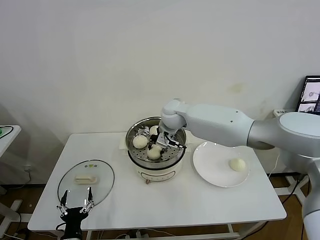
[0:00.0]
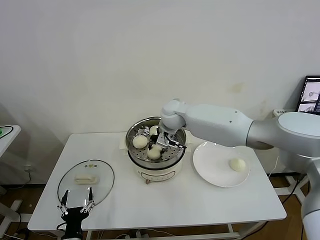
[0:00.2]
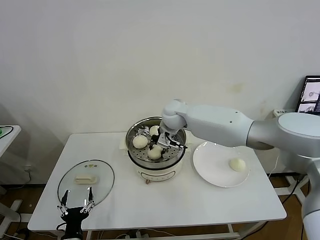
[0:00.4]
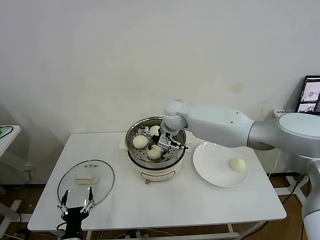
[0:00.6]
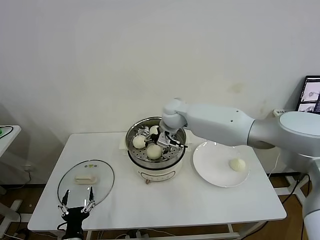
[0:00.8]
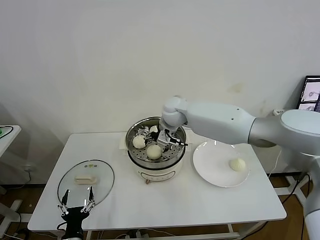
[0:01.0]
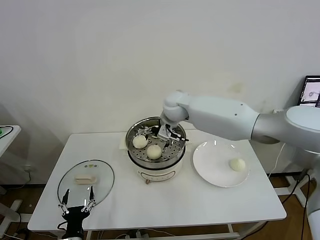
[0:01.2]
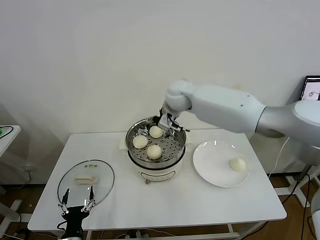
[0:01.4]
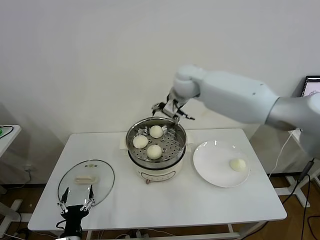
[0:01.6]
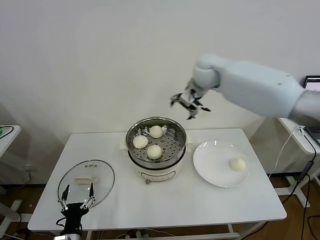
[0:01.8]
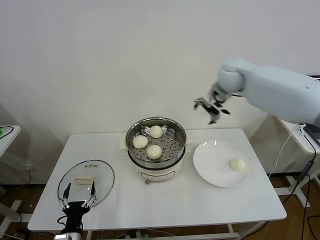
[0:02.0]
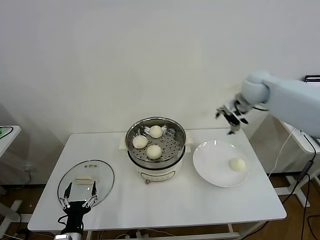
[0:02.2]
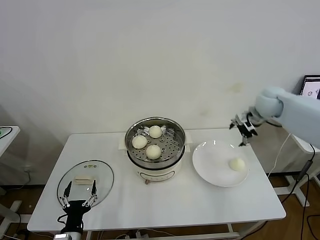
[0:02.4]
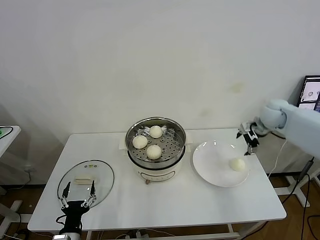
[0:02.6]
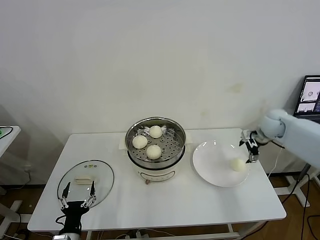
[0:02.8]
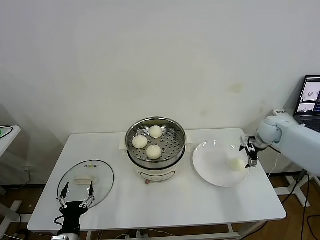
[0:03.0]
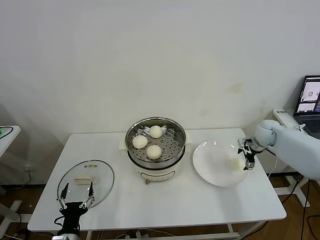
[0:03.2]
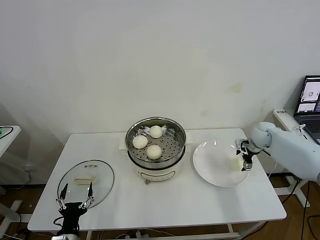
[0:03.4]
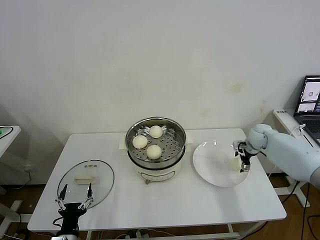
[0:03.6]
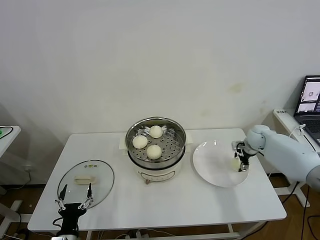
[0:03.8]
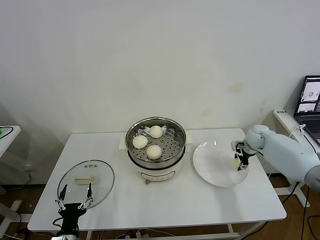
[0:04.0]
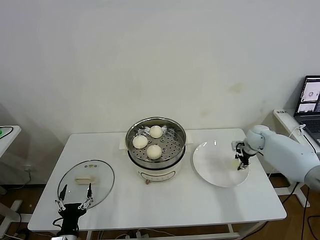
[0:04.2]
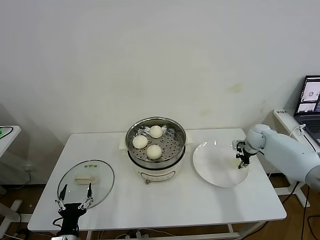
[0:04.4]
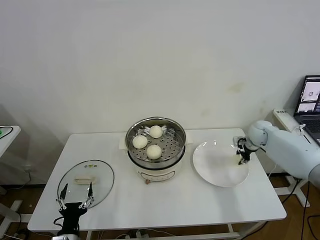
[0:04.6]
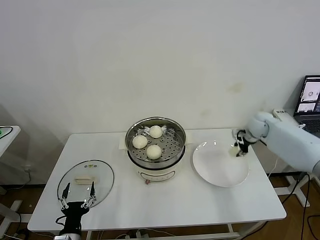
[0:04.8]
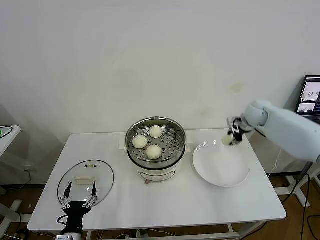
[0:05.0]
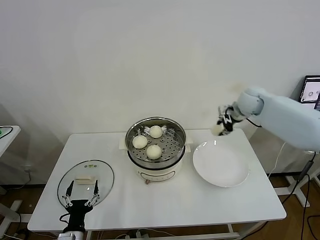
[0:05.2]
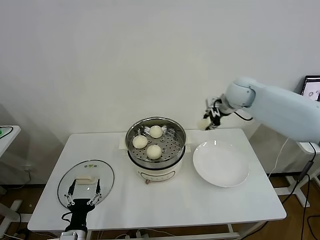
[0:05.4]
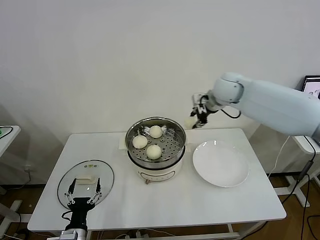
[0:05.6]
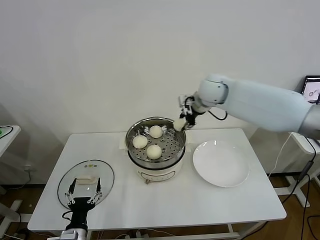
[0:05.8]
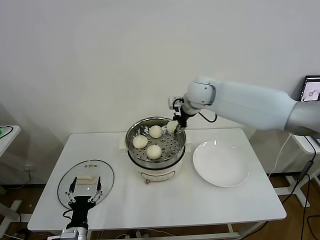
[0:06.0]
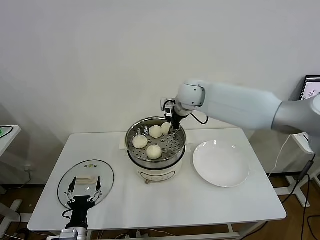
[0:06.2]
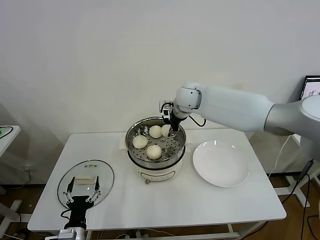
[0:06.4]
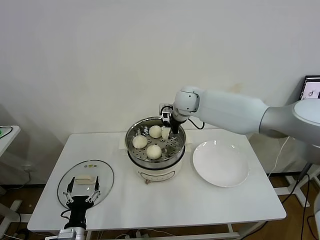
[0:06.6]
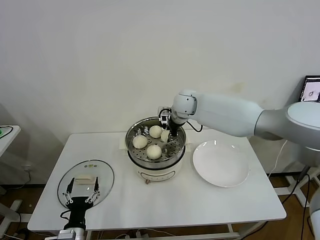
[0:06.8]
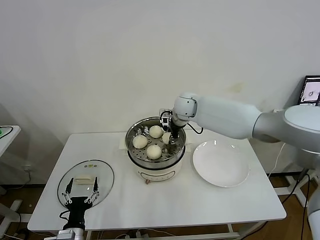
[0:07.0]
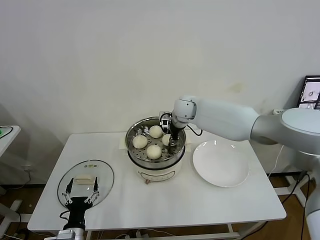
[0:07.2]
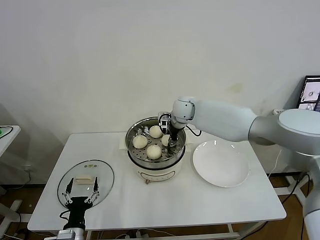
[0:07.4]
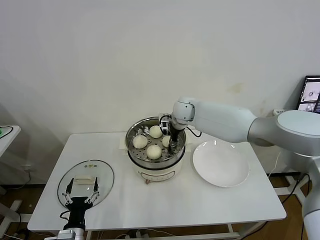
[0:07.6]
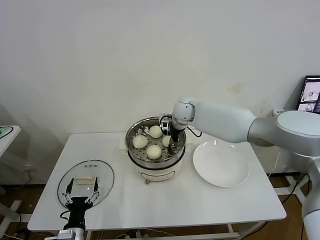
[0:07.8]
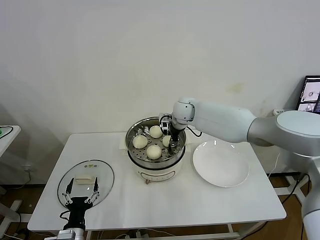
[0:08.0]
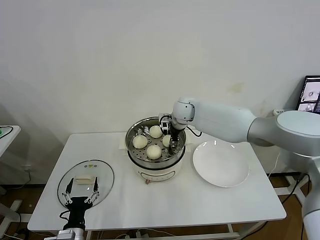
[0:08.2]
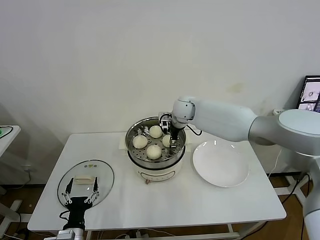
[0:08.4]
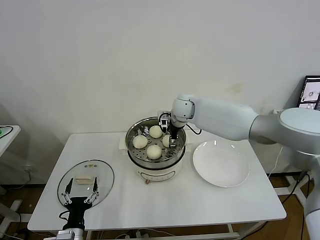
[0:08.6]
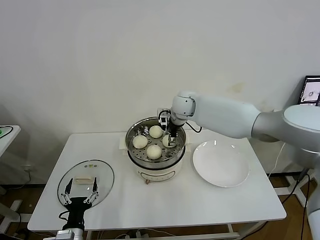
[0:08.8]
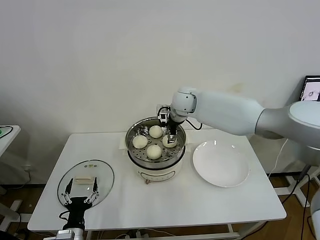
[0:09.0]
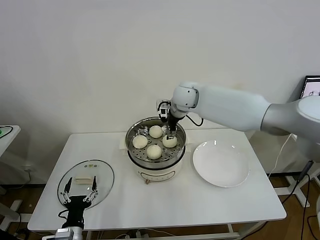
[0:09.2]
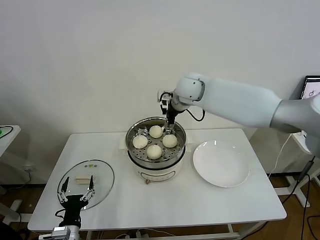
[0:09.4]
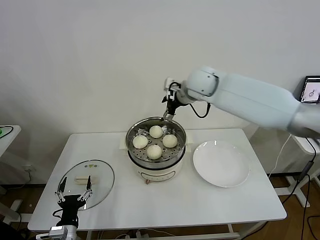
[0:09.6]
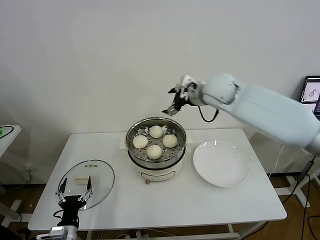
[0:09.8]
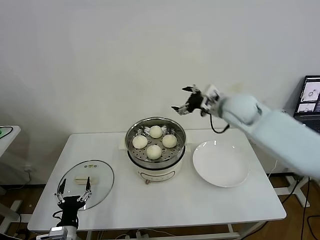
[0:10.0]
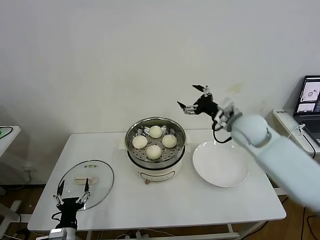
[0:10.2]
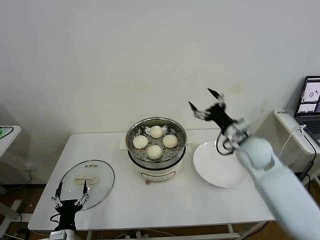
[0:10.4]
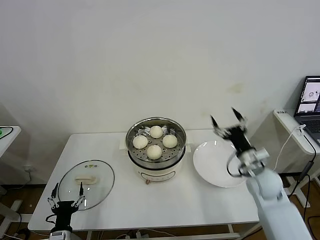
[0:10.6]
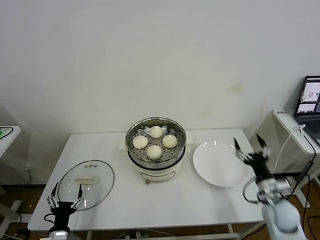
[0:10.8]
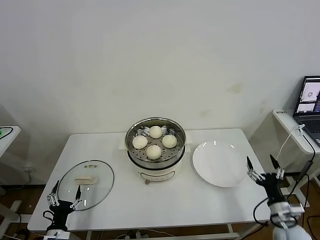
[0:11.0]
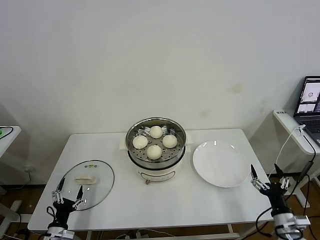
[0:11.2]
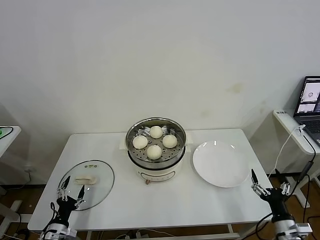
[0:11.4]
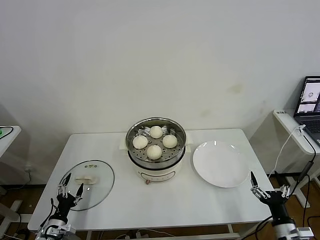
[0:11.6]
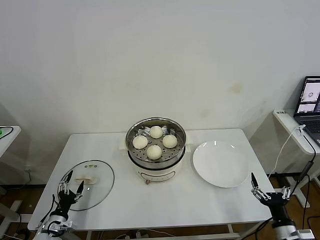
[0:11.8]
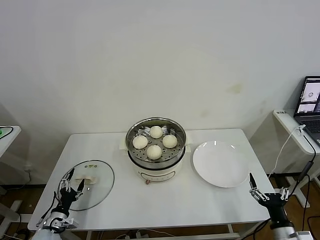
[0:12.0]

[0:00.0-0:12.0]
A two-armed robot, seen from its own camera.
Task of the whole recording: take steamed baozi put them in steamer then cover it.
Step, 0:01.2 to 0:04.2: Grasp the baozi in the plate with right gripper.
Step, 0:04.4 to 0:08.4: Place the baozi on the steamer with right gripper.
0:00.0 to 0:01.6: The right gripper goes some 15 cm upward and to the right, and opens up.
0:01.6 to 0:03.0: The right gripper moves to the right and downward, about 35 cm.
0:03.0 to 0:04.4: The right gripper goes approximately 5 cm downward, and closes its fingers.
0:04.4 to 0:06.0: The right gripper shifts roughly 35 cm to the left and upward.
0:06.0 to 0:07.6: The right gripper shifts roughly 10 cm downward.
0:07.6 to 0:09.0: The right gripper opens.
0:09.0 to 0:10.4: The right gripper heads to the right and backward, covering about 25 cm.
0:10.4 to 0:12.0: The right gripper travels backward and downward by some 35 cm. The left gripper is displaced to the left and forward by approximately 10 cm.

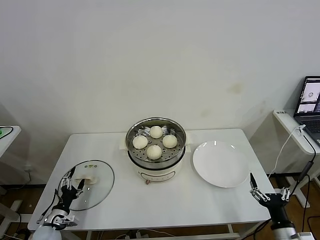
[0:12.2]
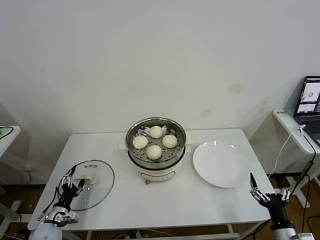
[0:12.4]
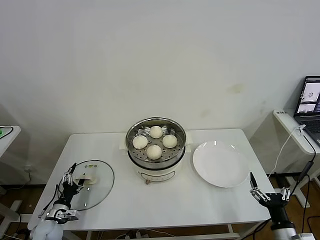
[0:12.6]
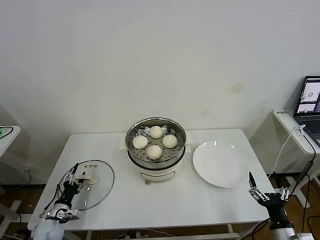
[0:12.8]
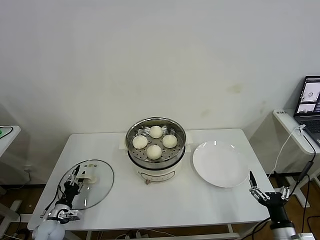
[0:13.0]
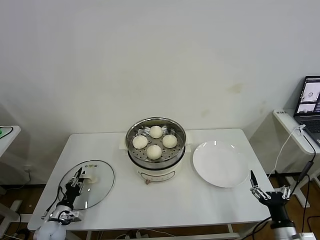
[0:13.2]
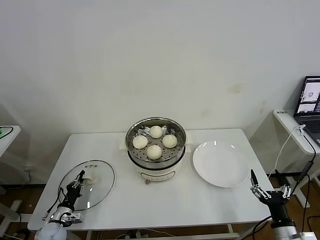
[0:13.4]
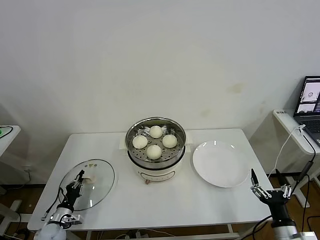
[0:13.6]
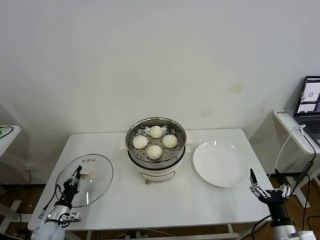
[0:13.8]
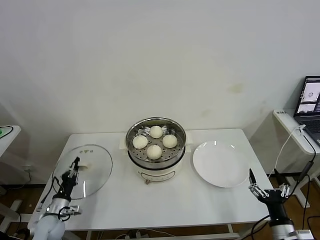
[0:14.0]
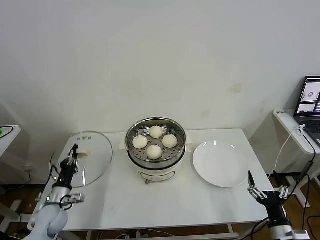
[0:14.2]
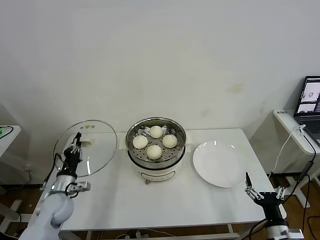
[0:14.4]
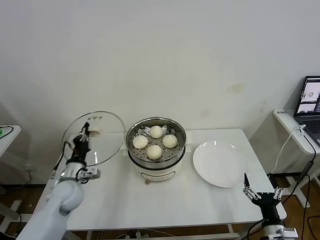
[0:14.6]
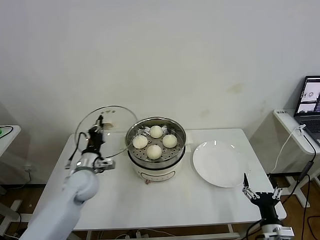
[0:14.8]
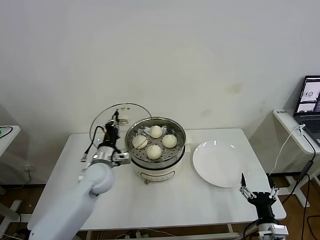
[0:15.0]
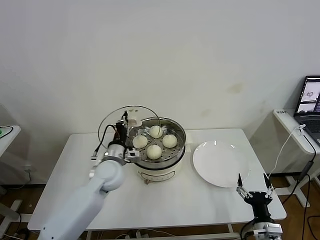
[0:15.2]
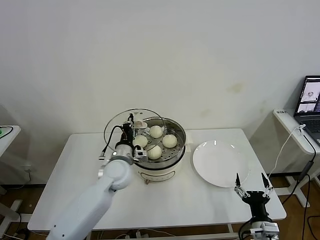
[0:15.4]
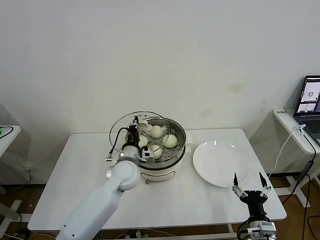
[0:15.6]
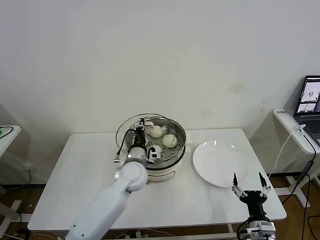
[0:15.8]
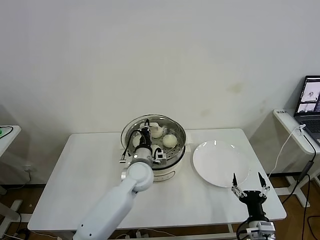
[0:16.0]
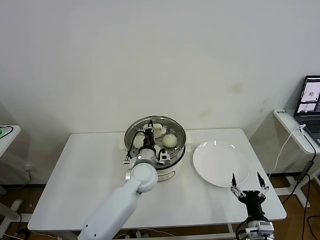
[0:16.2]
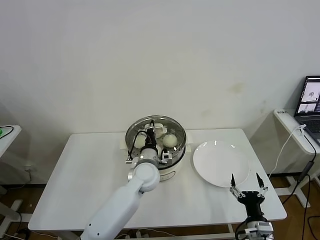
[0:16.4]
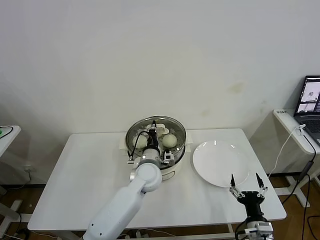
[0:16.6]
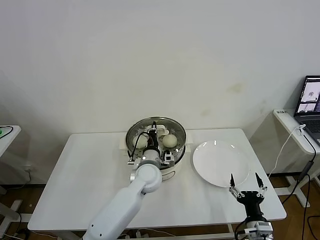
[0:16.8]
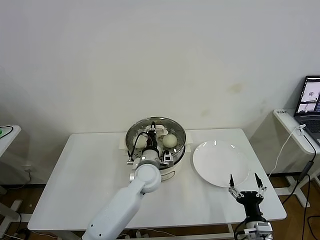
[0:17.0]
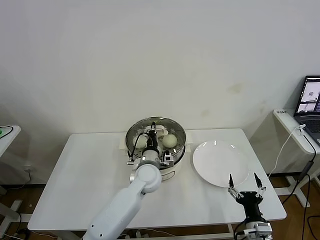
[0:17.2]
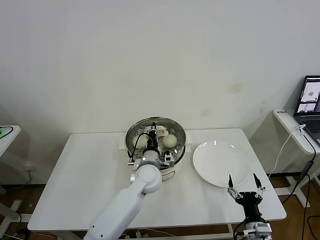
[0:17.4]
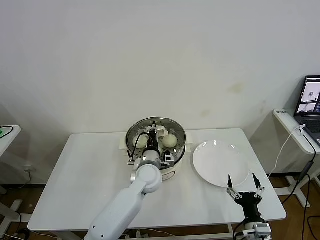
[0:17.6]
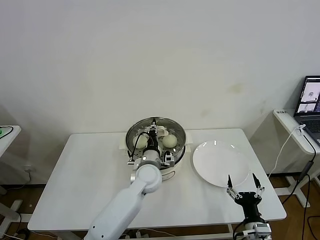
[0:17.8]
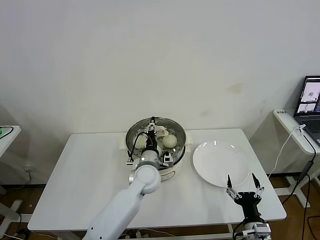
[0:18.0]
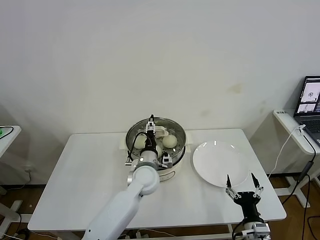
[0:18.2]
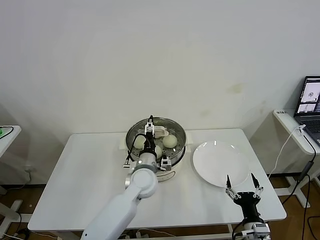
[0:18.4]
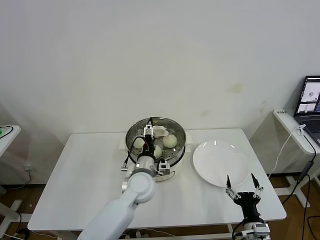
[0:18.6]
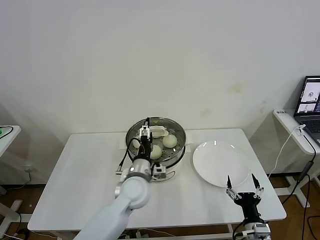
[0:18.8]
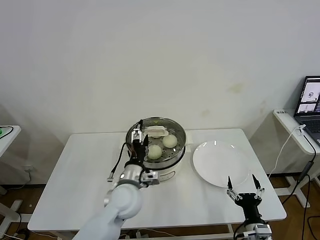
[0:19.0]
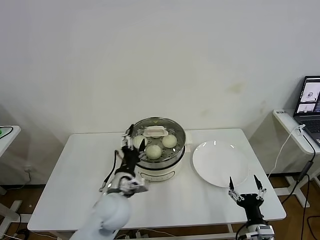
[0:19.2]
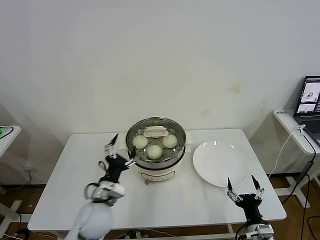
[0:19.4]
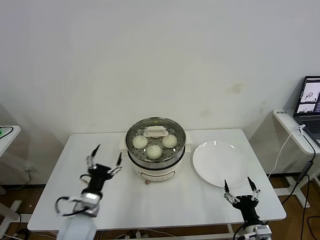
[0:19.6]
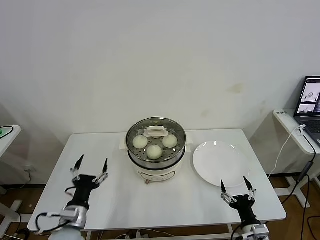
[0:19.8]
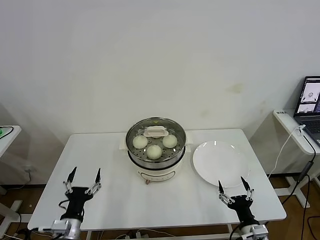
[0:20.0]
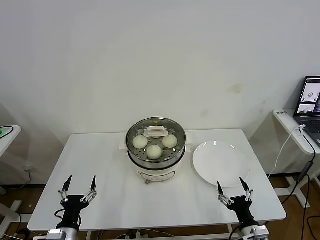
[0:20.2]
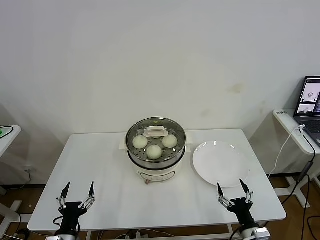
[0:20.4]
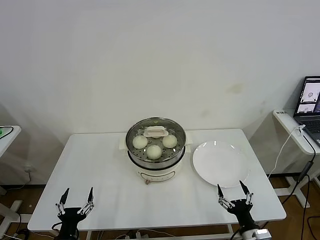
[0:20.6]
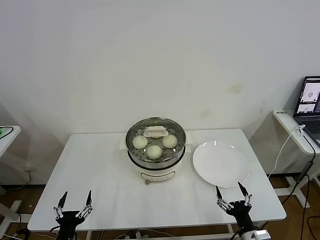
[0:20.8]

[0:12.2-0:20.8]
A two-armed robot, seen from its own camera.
Task of the whole recording: take steamed baozi put them in steamer then cover it.
Step, 0:13.8 to 0:18.2: Place the pot lid on the steamer with left gripper.
0:12.2 to 0:13.6: The left gripper closes.
0:13.6 to 0:15.0: The left gripper moves upward, to the right and forward, approximately 35 cm.
0:15.0 to 0:16.6: The left gripper is displaced to the right by about 15 cm.
0:16.6 to 0:18.0: The left gripper opens its fingers.
0:18.0 to 0:19.4: The left gripper heads to the left and backward, covering roughly 20 cm, and opens its fingers.
0:19.4 to 0:20.8: The left gripper travels backward, to the left and downward by approximately 25 cm.
